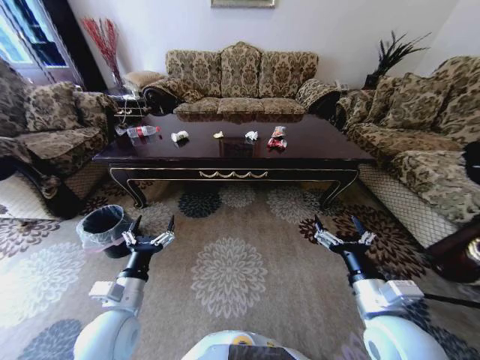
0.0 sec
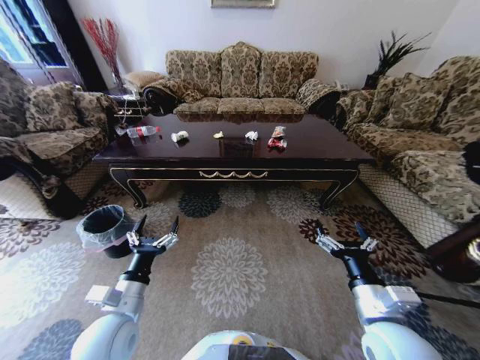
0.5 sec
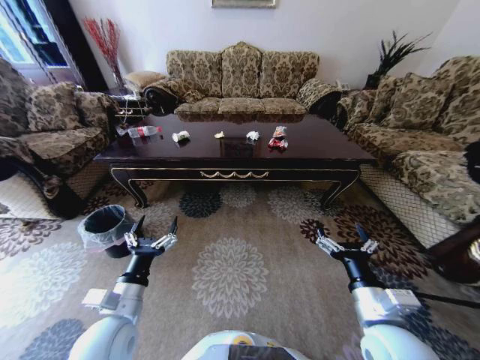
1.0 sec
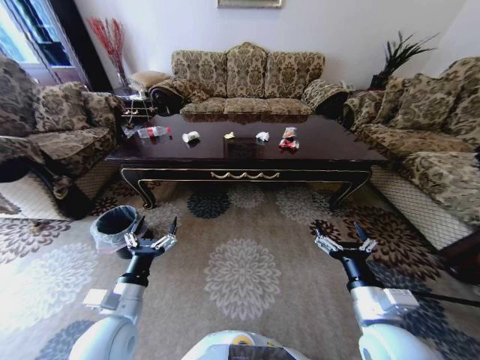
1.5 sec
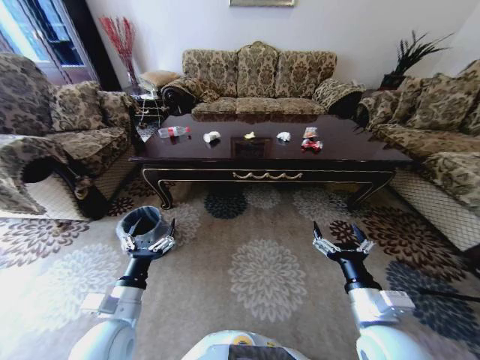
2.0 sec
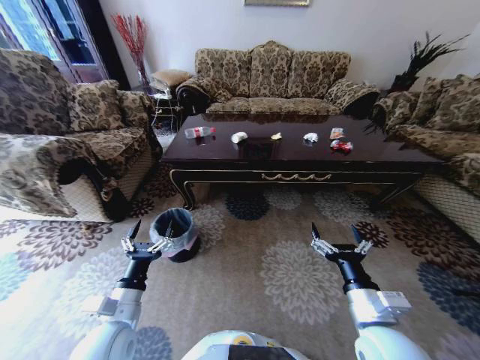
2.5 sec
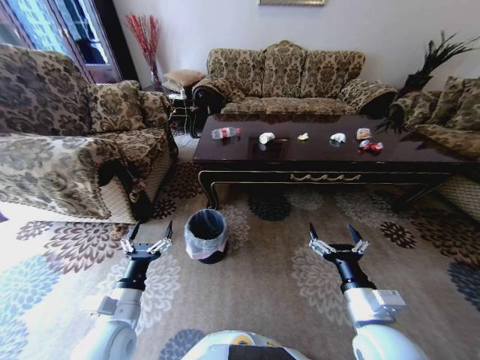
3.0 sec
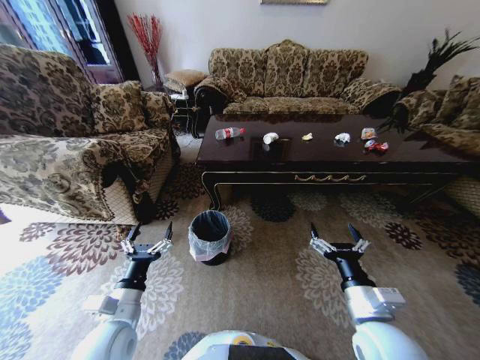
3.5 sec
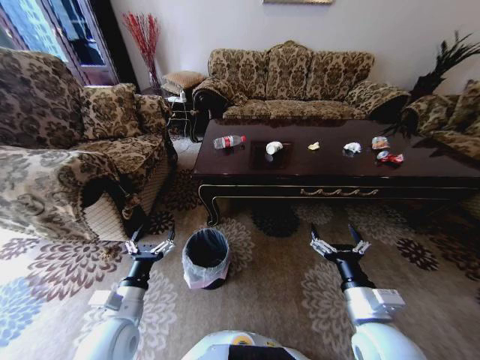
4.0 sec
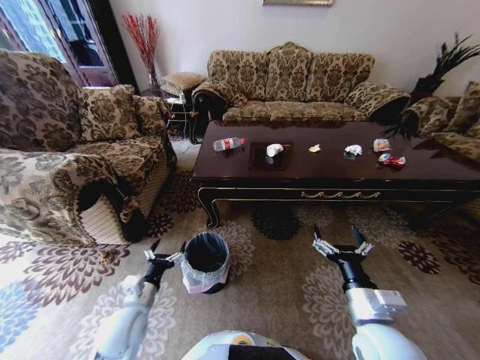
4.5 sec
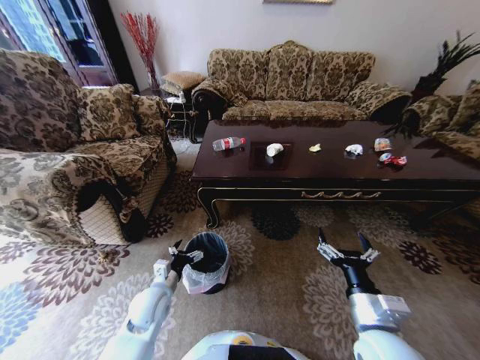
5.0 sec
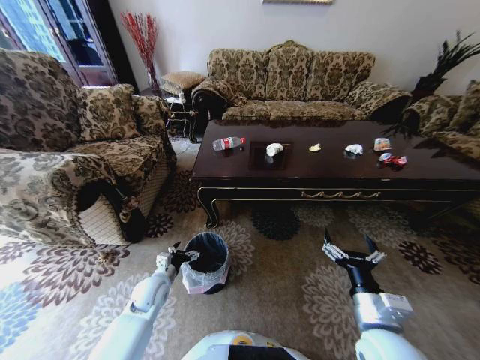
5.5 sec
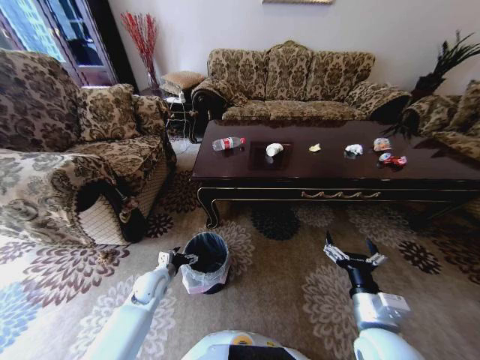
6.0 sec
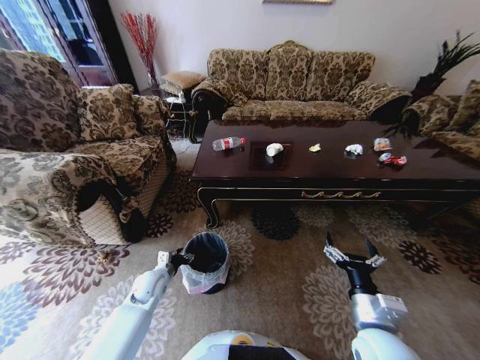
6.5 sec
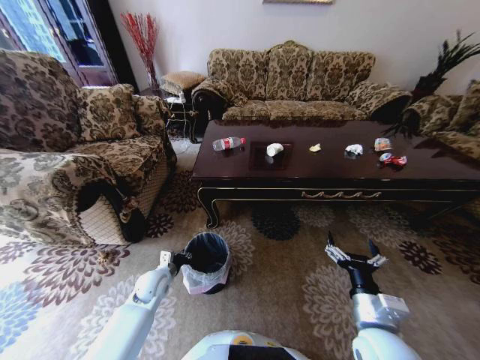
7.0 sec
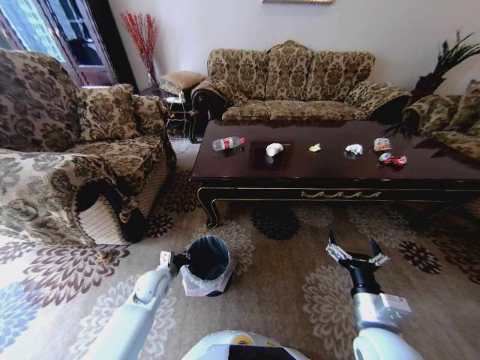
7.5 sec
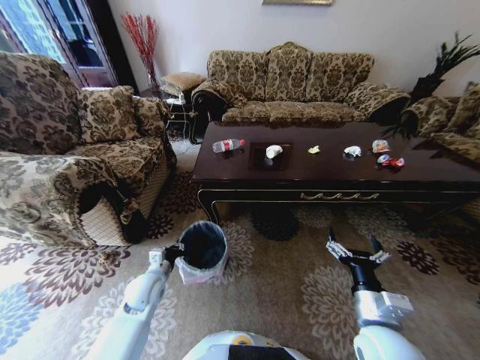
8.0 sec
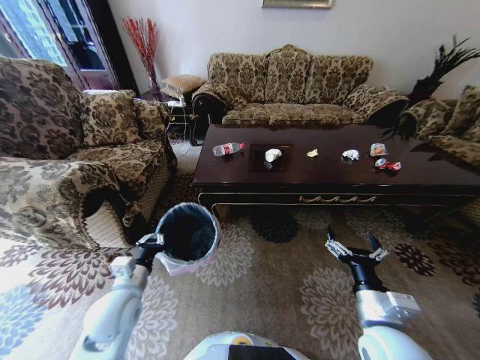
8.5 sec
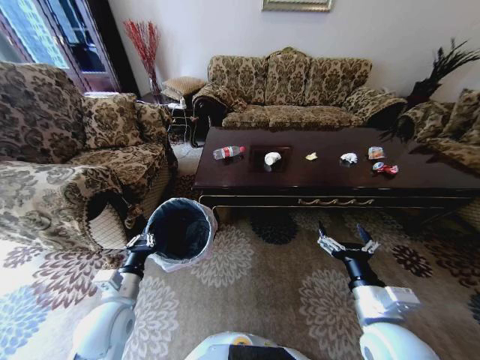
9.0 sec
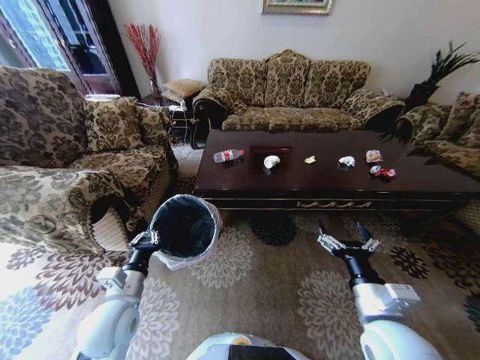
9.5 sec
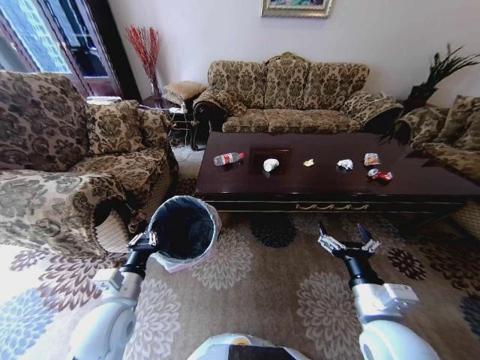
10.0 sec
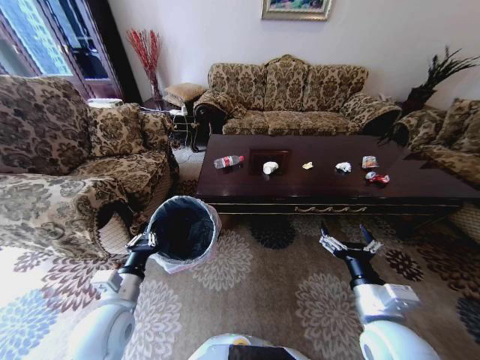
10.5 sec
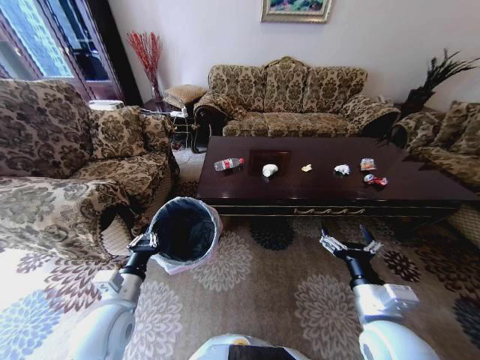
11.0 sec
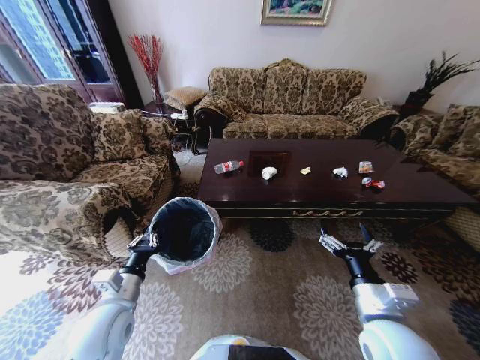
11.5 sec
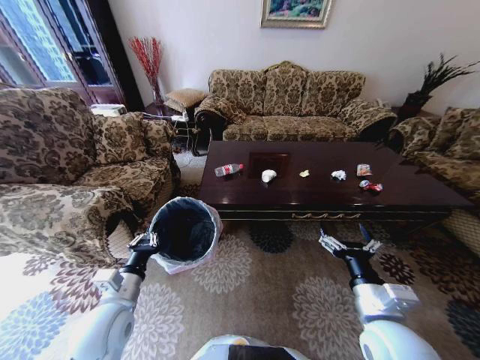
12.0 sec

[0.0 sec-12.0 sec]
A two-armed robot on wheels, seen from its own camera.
Task of the whole recording: Move to the front of the table and place the trash on the table into the trash bin.
4.0 sec to 6.0 sec: The left gripper moves forward and downward, some 20 cm.
6.0 sec to 8.0 sec: The left gripper shifts by roughly 5 cm, and closes up.
8.0 sec to 10.0 sec: The left gripper shifts roughly 15 cm upward and backward.

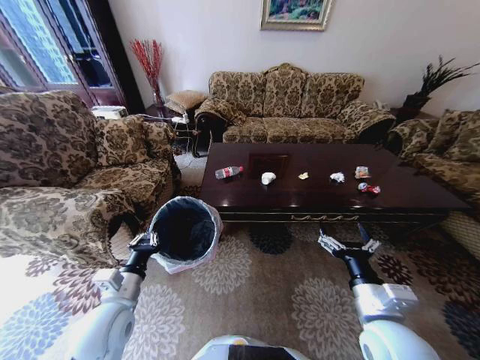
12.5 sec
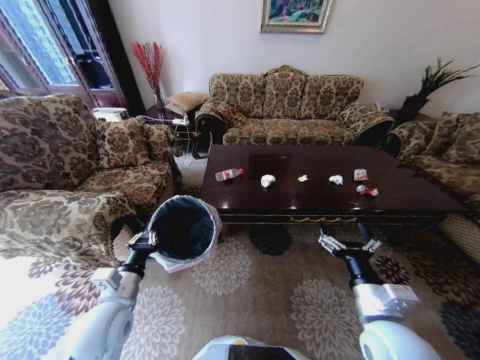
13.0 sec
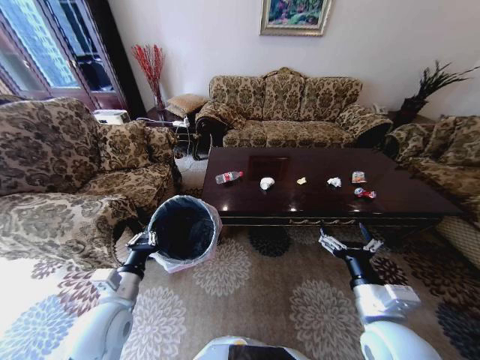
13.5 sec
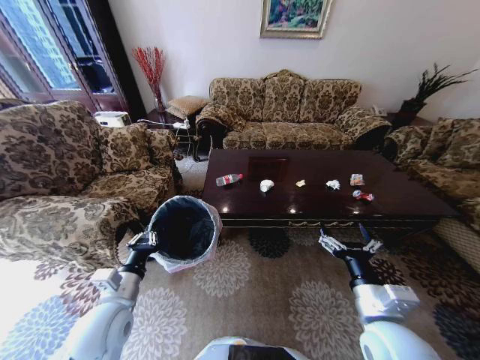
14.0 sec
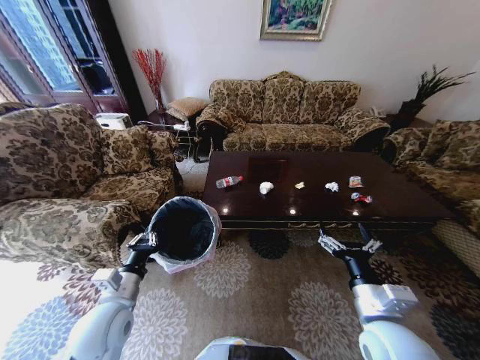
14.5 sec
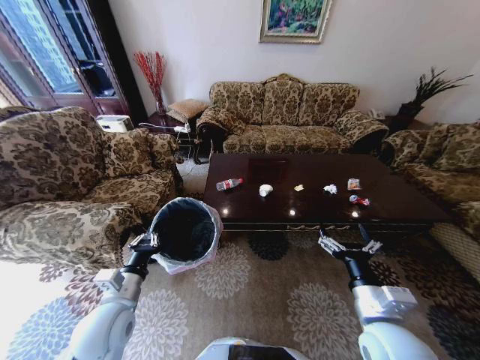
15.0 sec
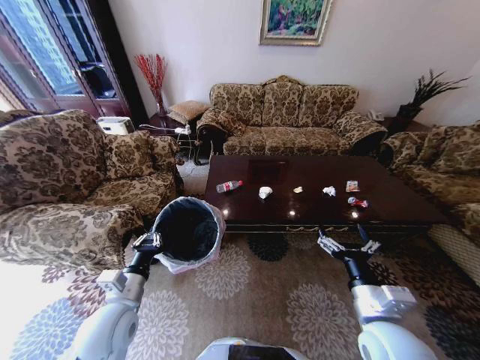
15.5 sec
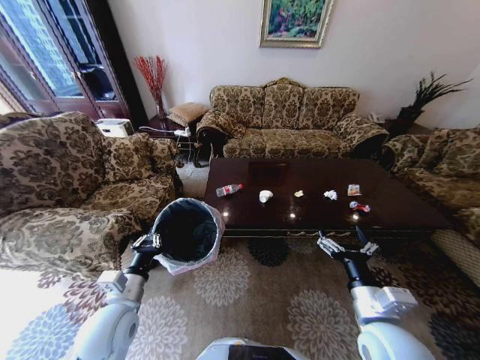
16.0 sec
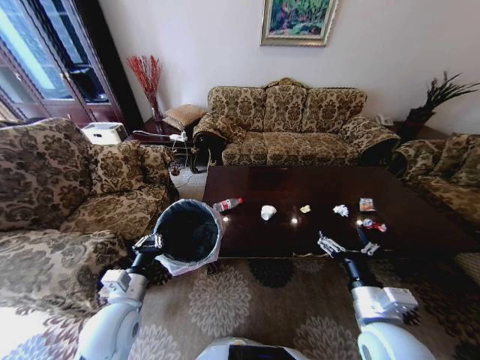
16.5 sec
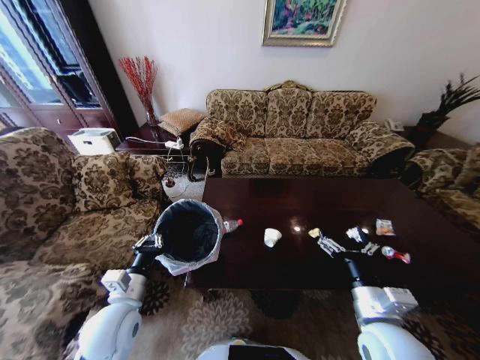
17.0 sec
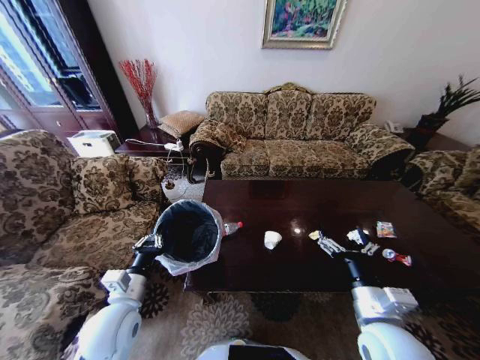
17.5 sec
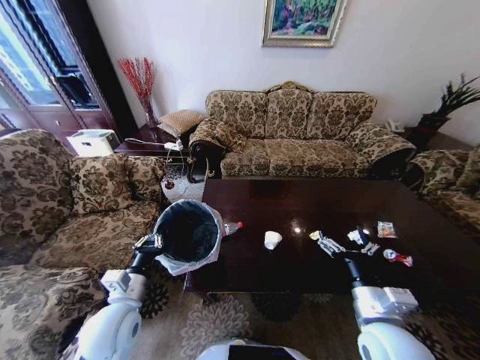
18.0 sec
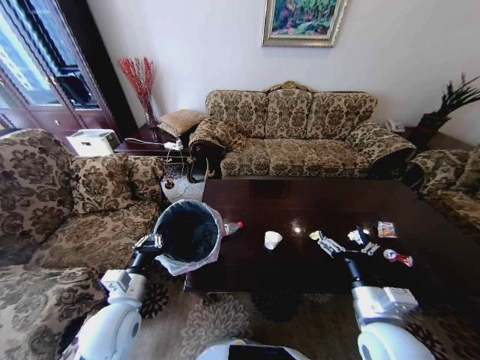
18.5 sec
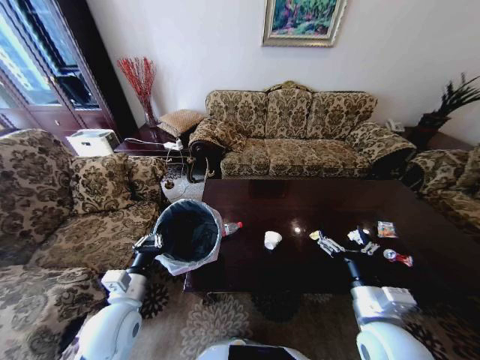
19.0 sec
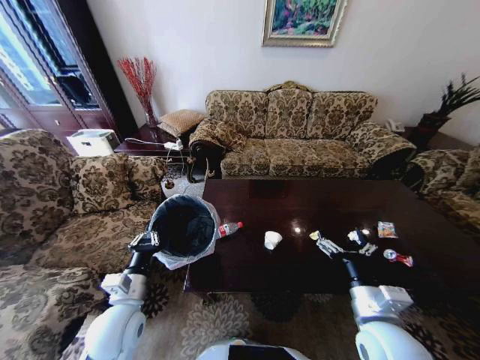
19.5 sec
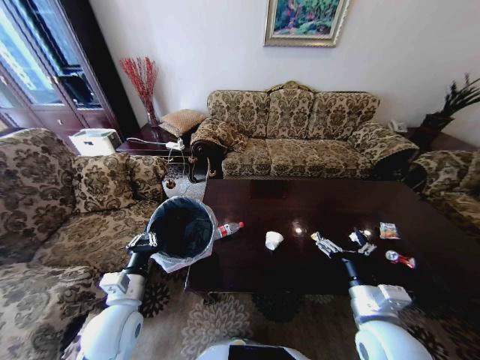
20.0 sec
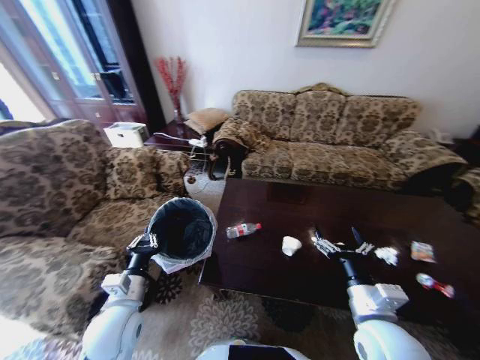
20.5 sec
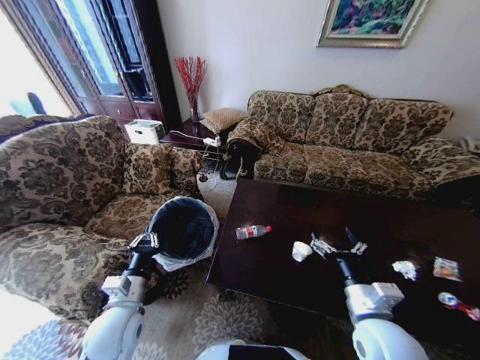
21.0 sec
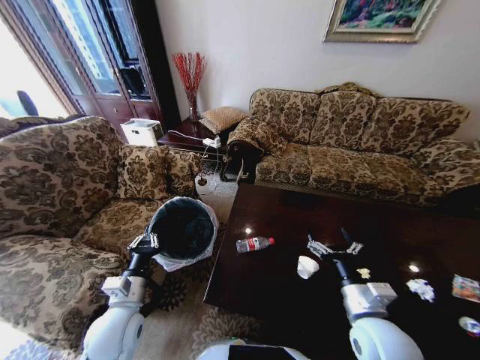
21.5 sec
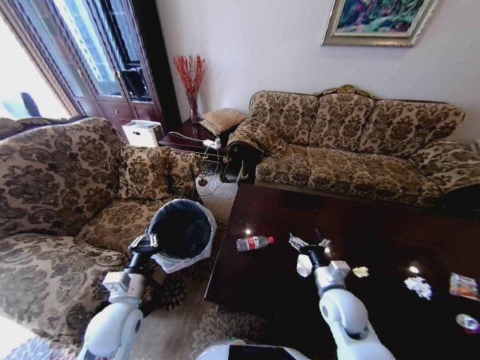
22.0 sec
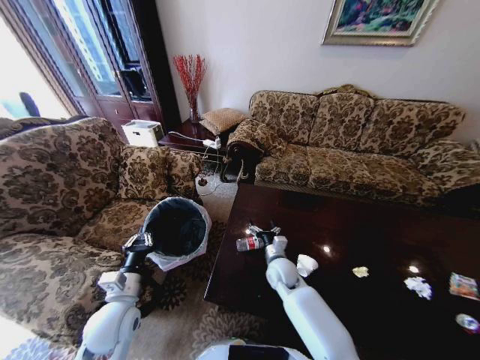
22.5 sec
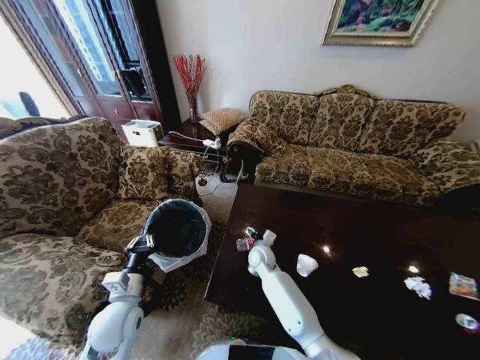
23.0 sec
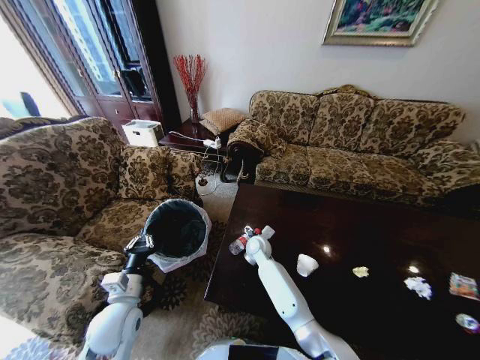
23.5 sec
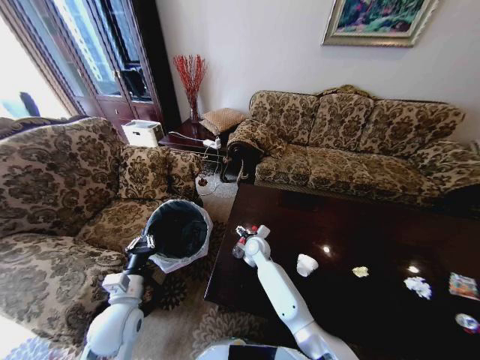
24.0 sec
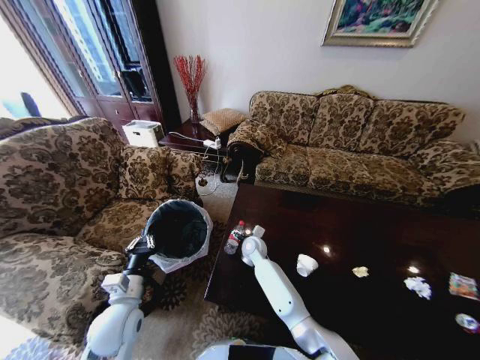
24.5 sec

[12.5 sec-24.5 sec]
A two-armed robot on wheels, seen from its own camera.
Task of the whole recording: Move to the front of the table and place the trash on the table into the trash bin.
20.5 sec to 22.5 sec: The right gripper is displaced forward, downward and to the left by approximately 25 cm.
22.5 sec to 24.5 sec: The right gripper moves to the left and forward, about 15 cm.

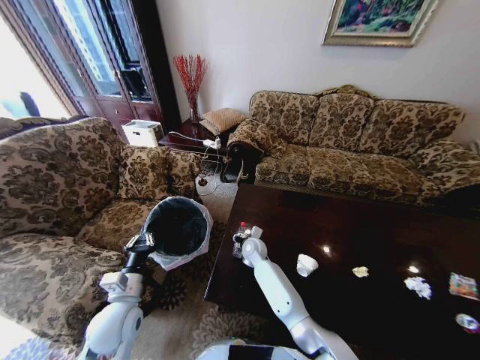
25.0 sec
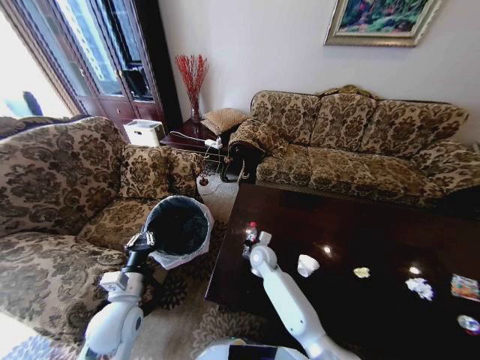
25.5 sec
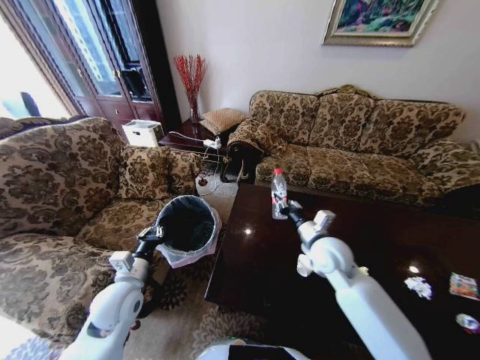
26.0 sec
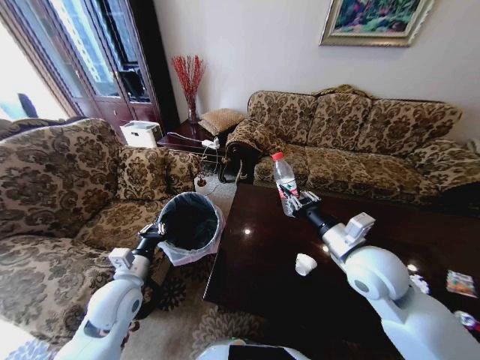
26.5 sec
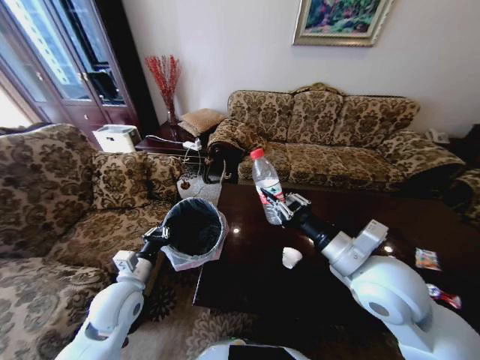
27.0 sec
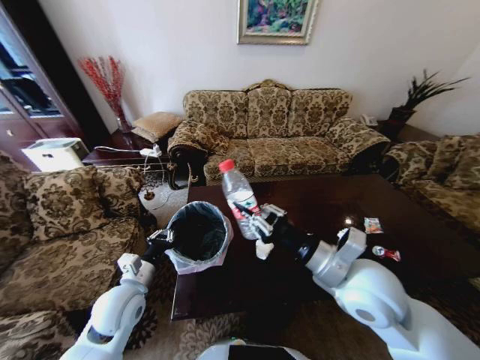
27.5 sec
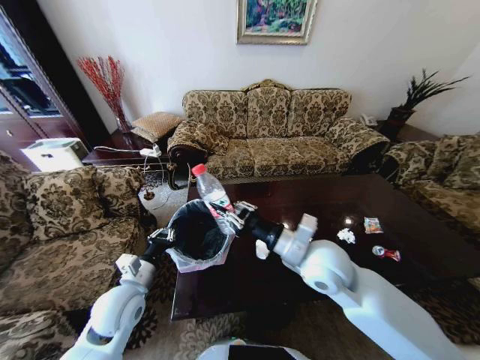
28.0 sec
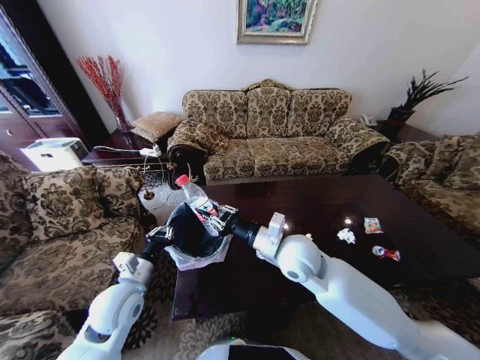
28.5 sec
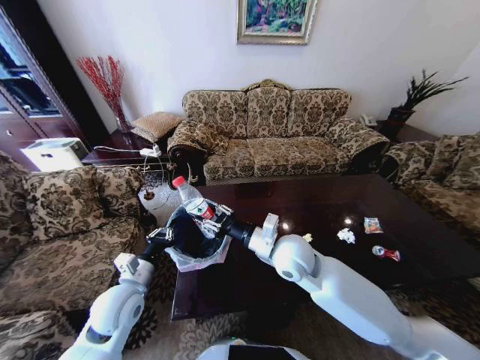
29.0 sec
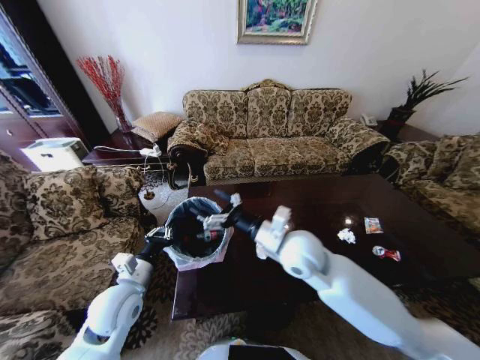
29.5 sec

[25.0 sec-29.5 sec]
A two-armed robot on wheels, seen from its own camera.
Task of the whole recording: Move to the front of the table and place the trash on the table into the trash bin.
25.0 sec to 27.0 sec: The right gripper shifts about 40 cm upward, backward and to the right, and closes.
27.0 sec to 29.5 sec: The right gripper travels to the left, forward and downward by about 15 cm, and opens its fingers.
